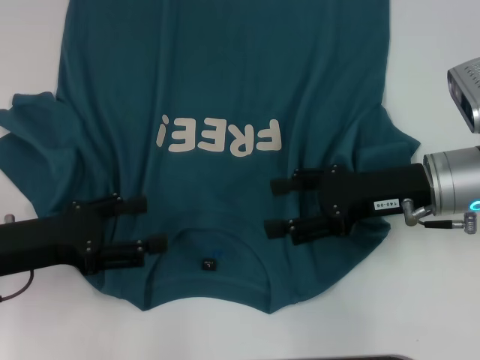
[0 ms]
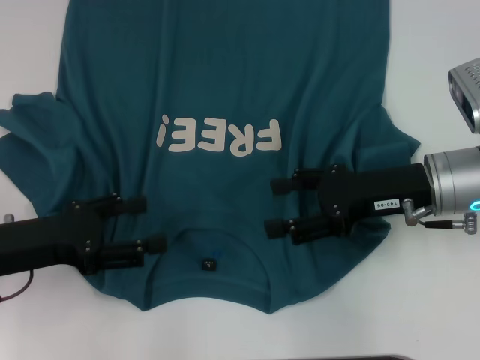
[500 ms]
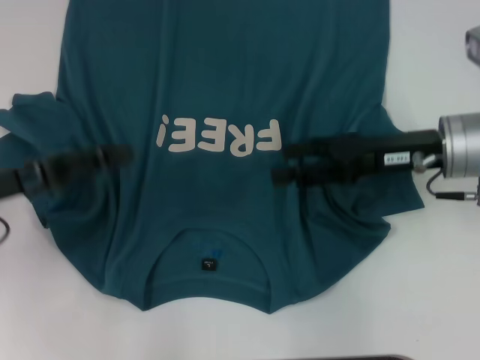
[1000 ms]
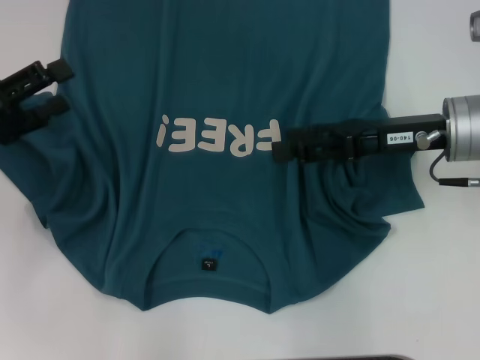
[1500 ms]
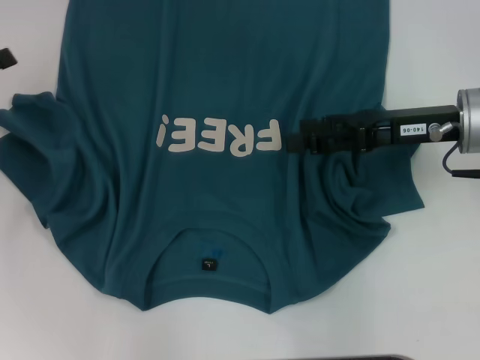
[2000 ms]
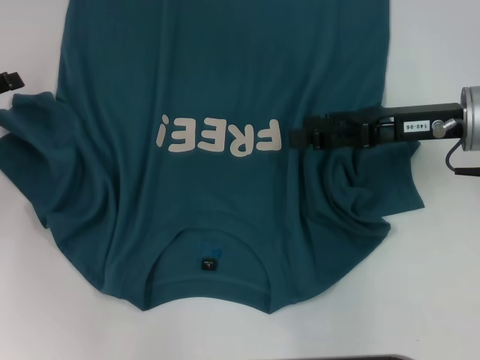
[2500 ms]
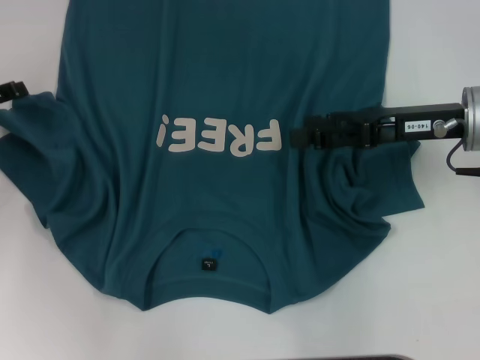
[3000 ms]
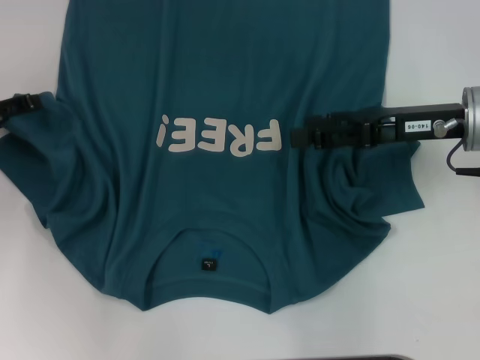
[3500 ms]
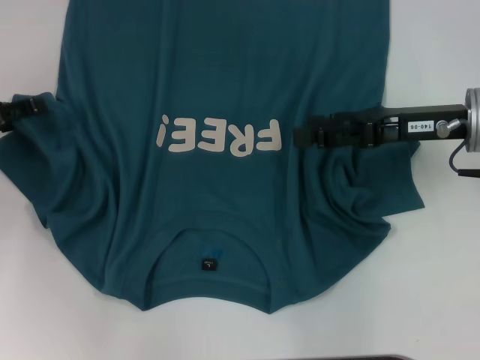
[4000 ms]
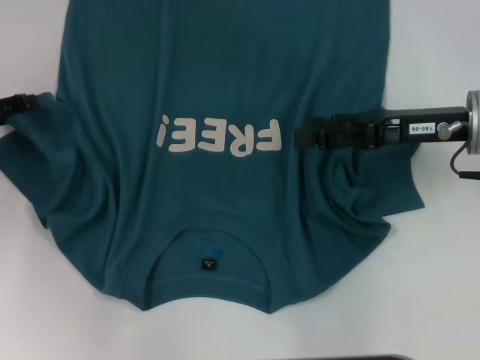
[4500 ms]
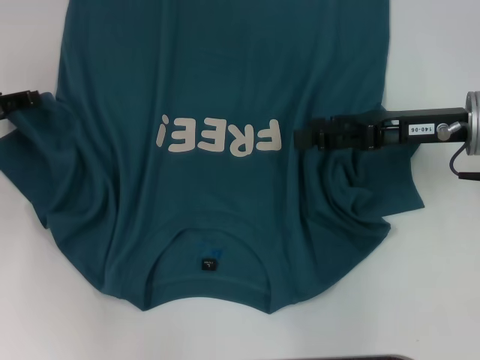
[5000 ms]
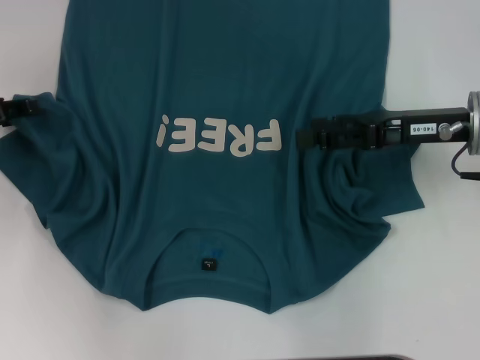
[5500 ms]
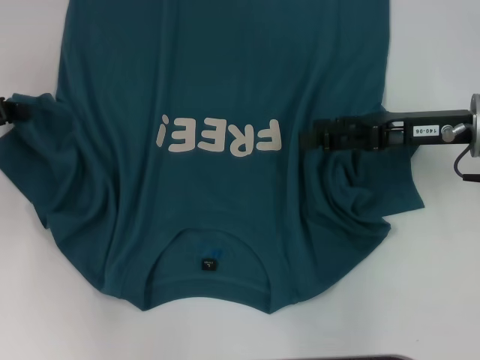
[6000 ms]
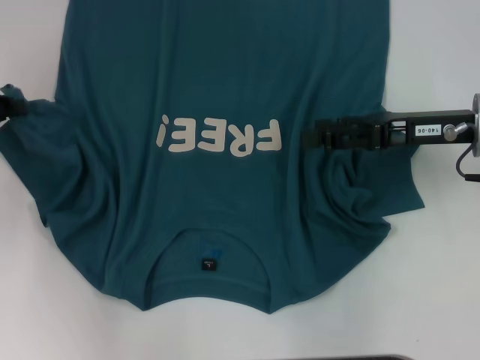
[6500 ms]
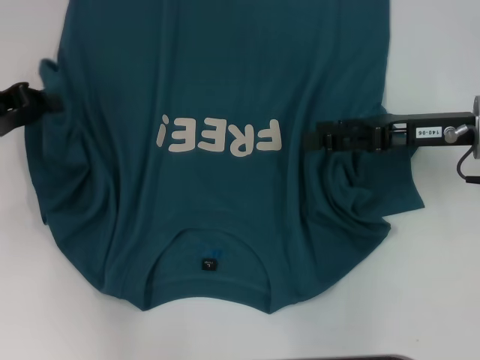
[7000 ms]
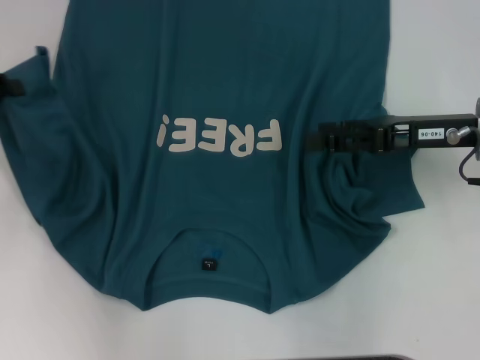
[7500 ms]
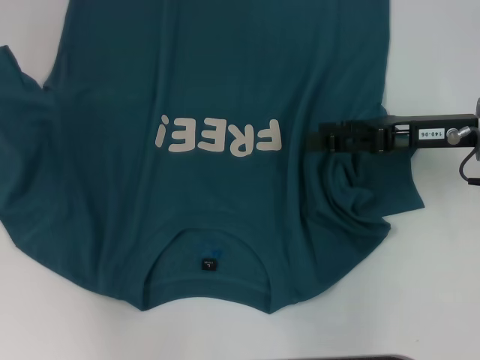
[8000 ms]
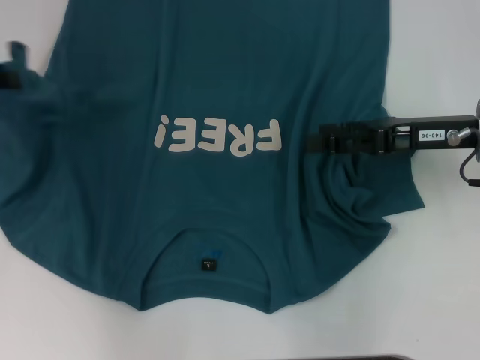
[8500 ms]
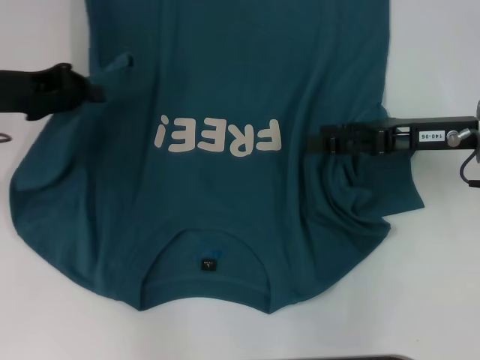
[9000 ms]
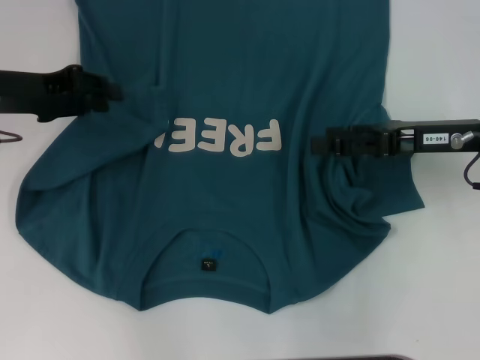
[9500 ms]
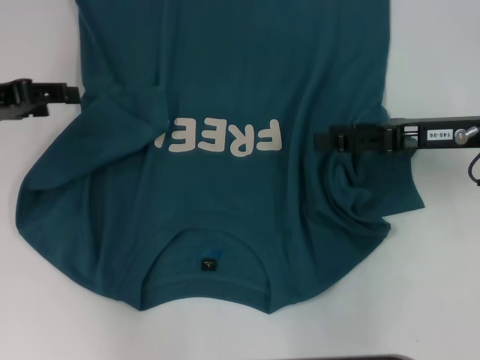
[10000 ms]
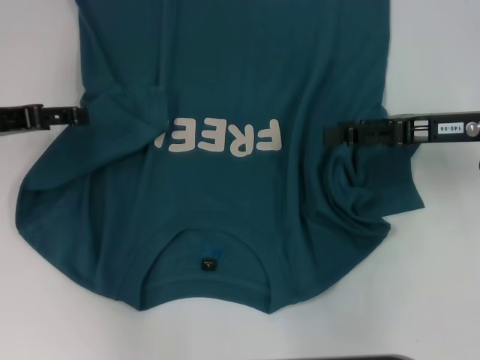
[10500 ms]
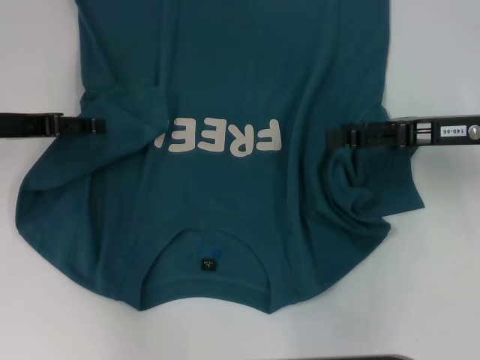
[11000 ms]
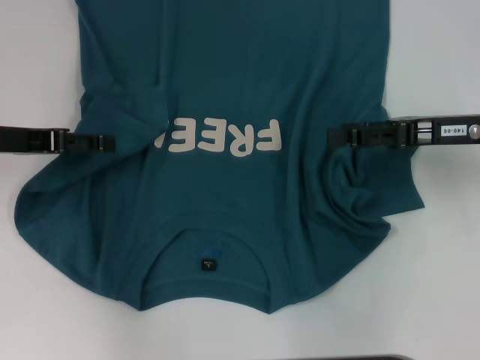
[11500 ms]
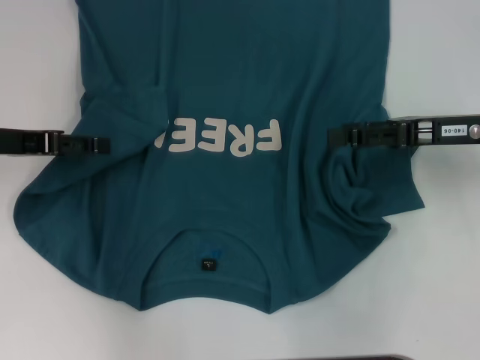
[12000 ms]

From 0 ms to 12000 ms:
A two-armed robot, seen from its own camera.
From 0 ms to 2000 ms: The left gripper travels to the left and forward by approximately 10 cm; the right gripper shifts by some 5 cm.
From 2000 ms to 4000 ms: The grippers make only small movements.
From 6000 ms to 8000 ms: The left gripper moves upward, some 10 cm.
From 8000 ms to 10000 ms: The left gripper opens its fingers.
From 10000 ms to 12000 ms: The left gripper opens its fingers.

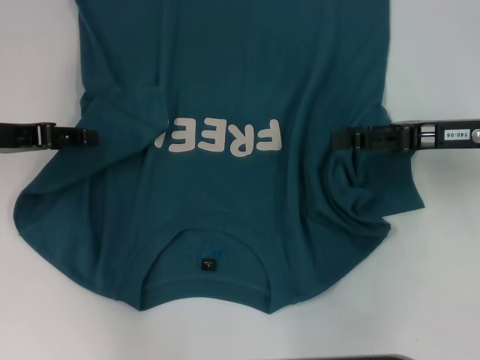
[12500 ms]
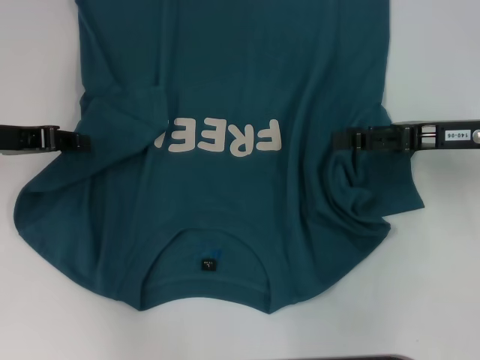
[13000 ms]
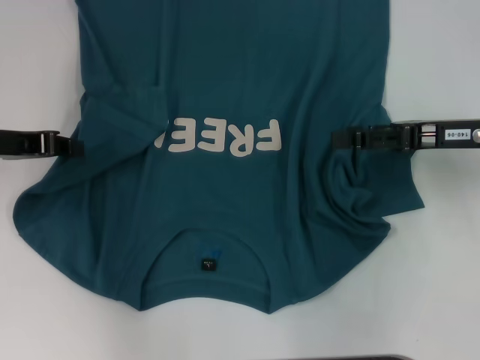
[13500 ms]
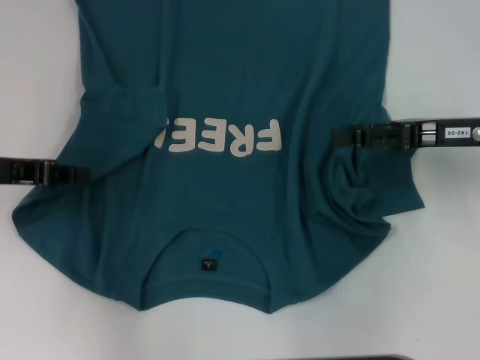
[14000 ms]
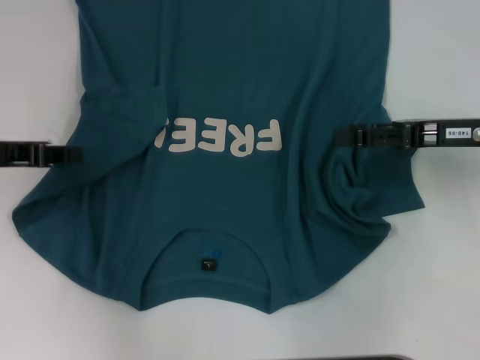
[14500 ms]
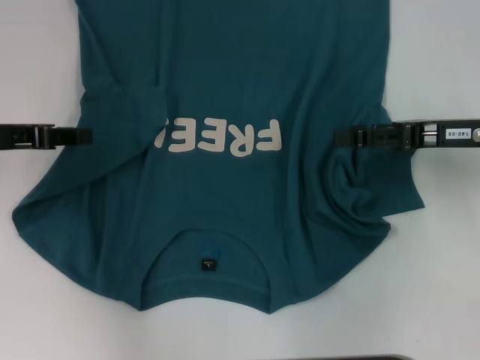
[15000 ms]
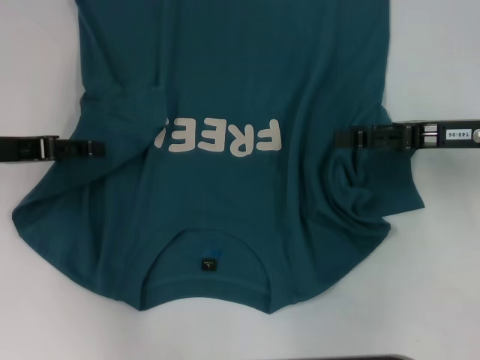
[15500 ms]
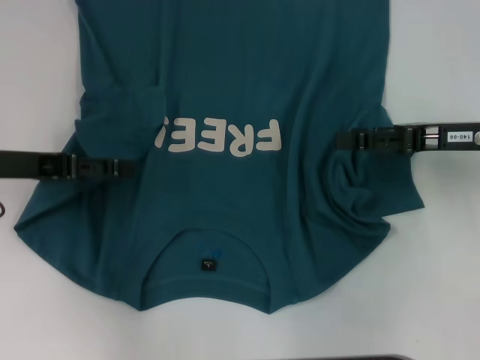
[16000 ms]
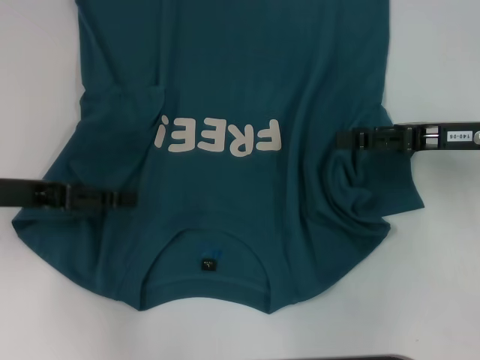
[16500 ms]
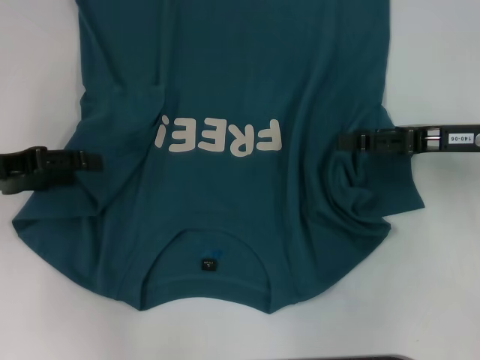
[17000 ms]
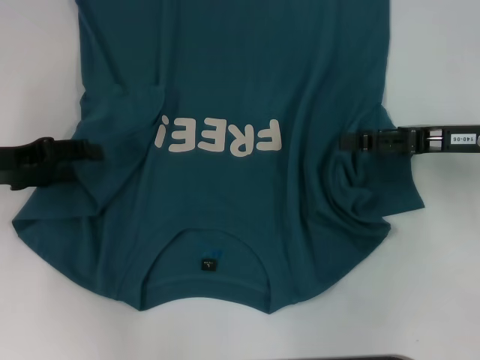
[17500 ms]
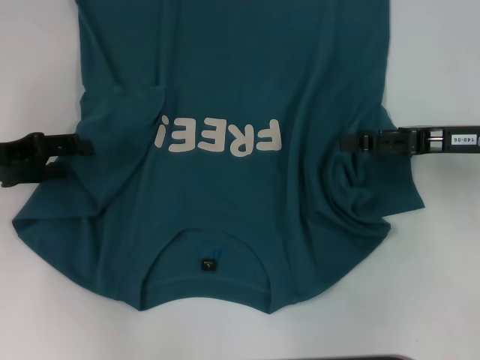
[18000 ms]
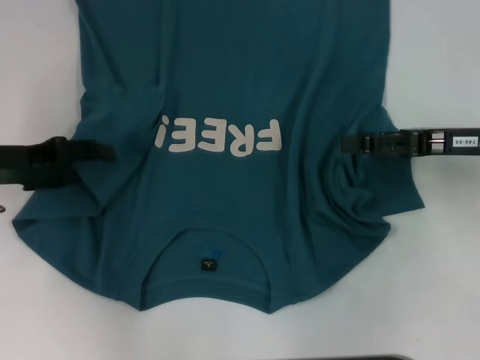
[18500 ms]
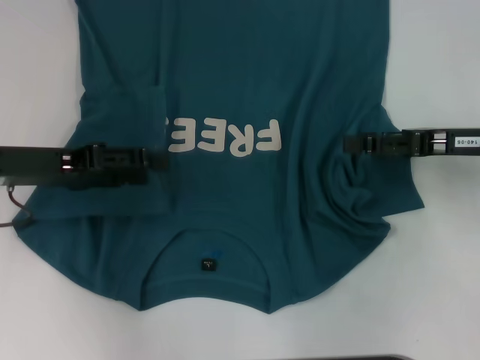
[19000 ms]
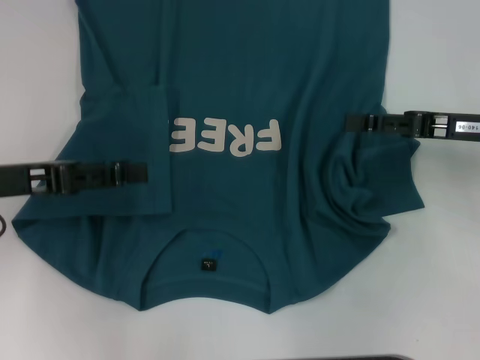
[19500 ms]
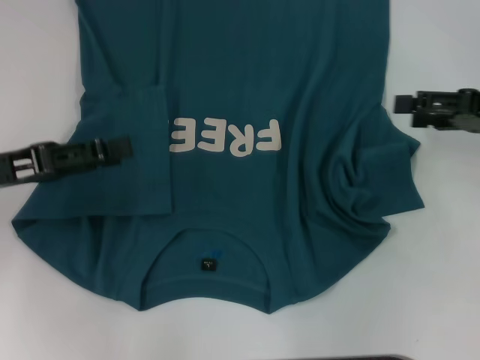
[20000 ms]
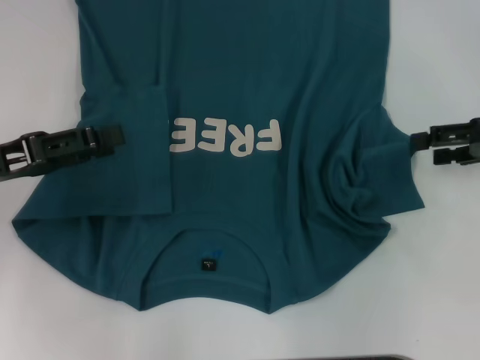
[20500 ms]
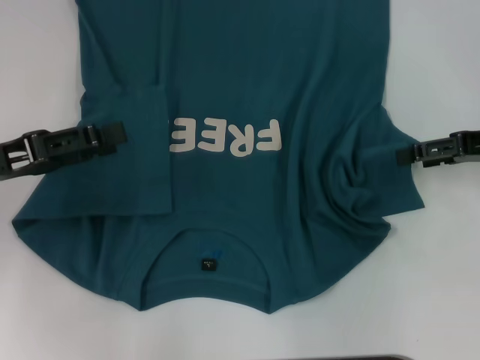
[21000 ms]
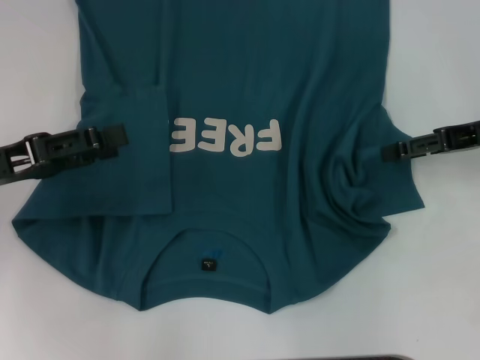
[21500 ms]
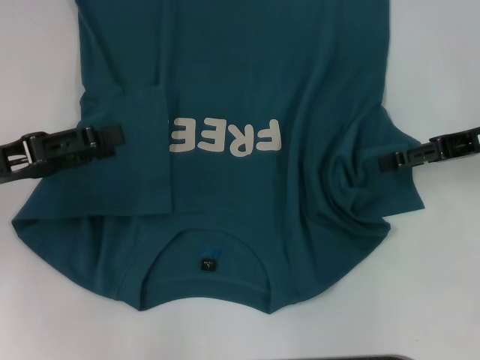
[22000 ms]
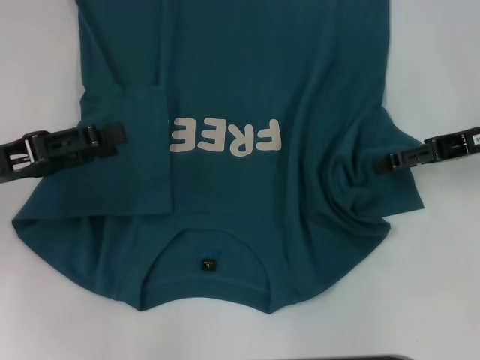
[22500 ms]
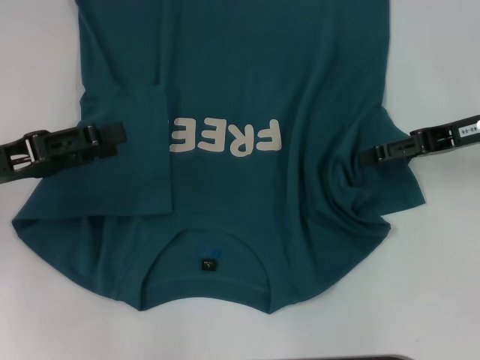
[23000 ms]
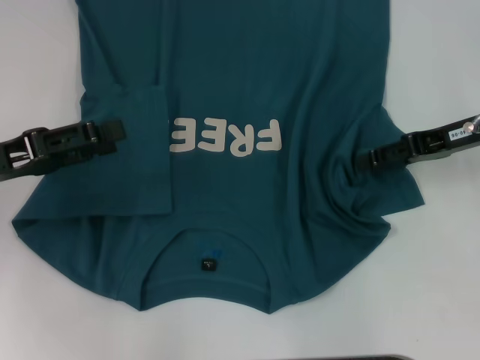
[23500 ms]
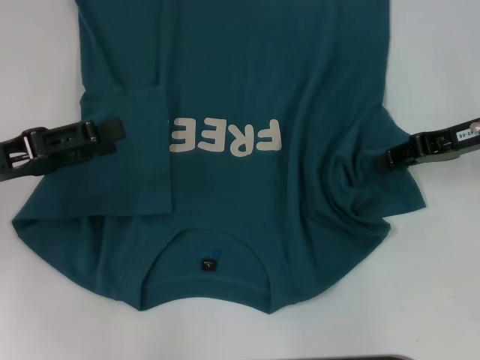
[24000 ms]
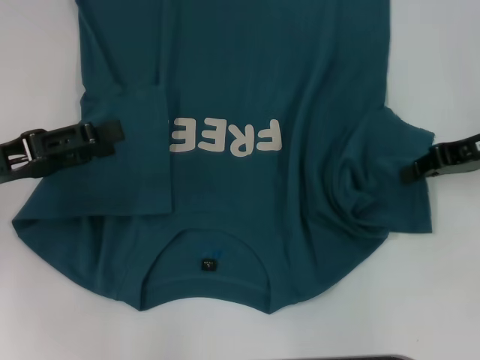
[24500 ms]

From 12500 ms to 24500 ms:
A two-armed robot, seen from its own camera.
Step, from 12500 ms to 19000 ms: Fold the bottom left sleeve with your left hand.
From 12500 ms to 14500 ms: The left gripper closes its fingers.
From 14500 ms to 16500 ms: The left gripper opens up.
From 18500 ms to 20500 ms: The left gripper ends up roughly 5 cm from where it was. Meanwhile the right gripper travels to the right by some 5 cm.
From 20500 ms to 22500 ms: The grippers make only small movements.
From 22500 ms to 24500 ms: The right gripper closes.

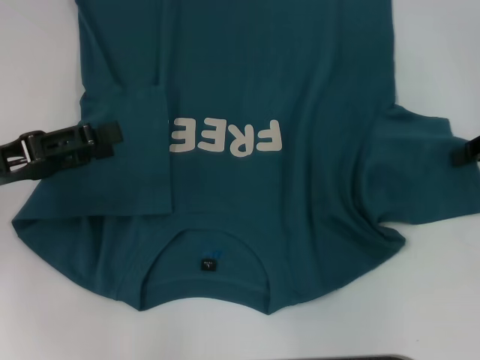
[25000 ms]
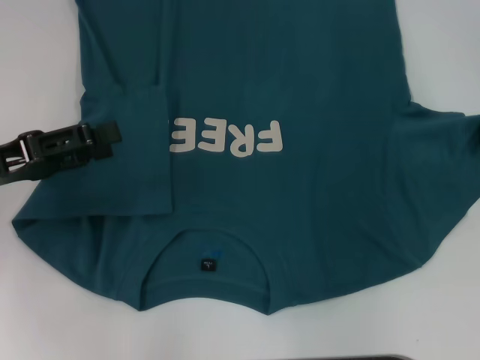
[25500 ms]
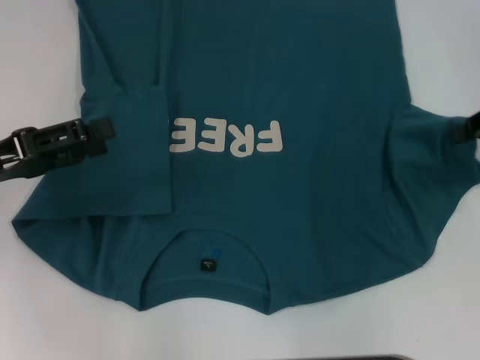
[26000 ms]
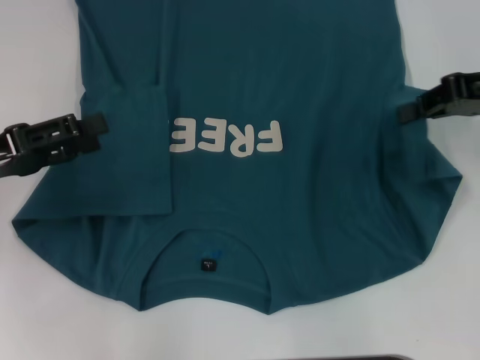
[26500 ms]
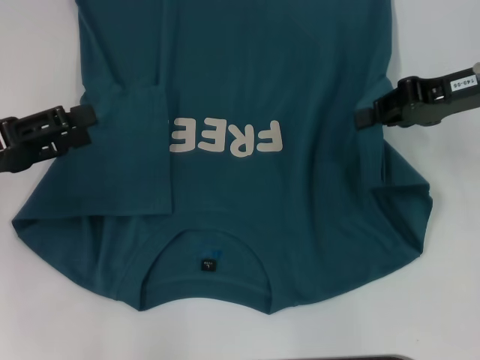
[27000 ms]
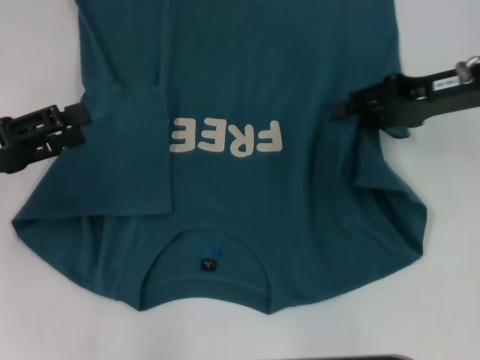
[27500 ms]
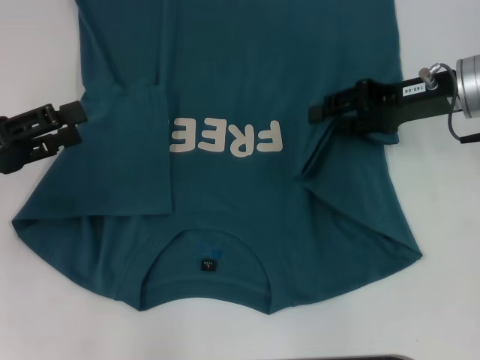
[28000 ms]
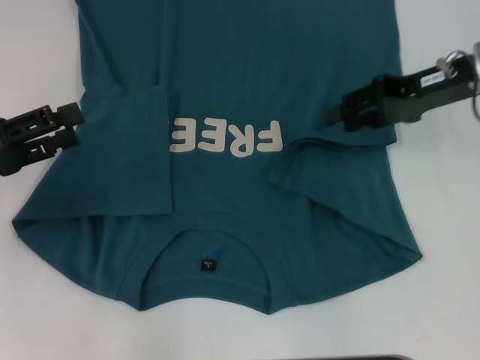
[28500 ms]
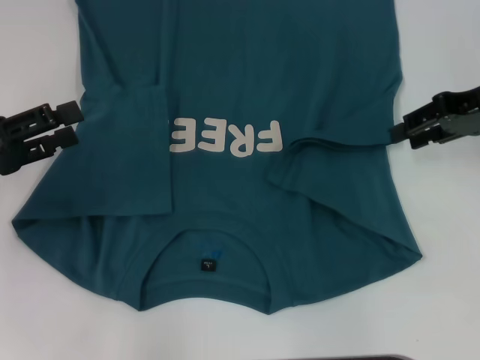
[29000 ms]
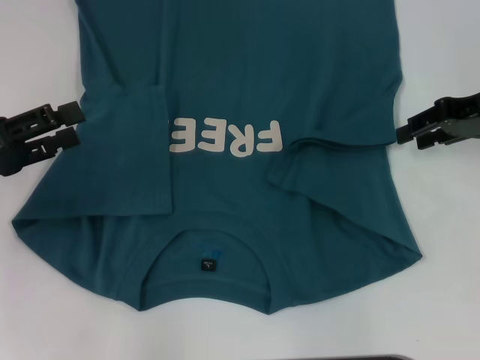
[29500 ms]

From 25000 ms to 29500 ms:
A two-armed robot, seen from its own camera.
From 25000 ms to 27000 ms: The right gripper travels to the left by approximately 10 cm.
From 27000 ms to 29500 ms: The right gripper opens up.
